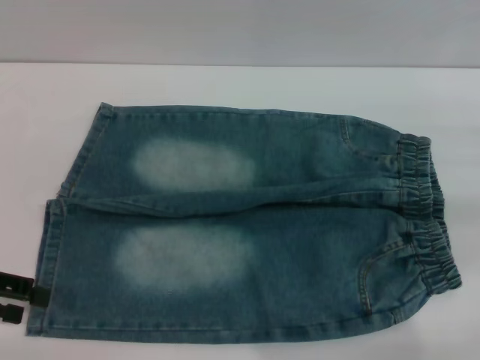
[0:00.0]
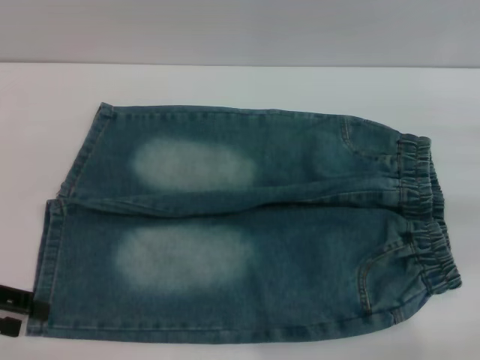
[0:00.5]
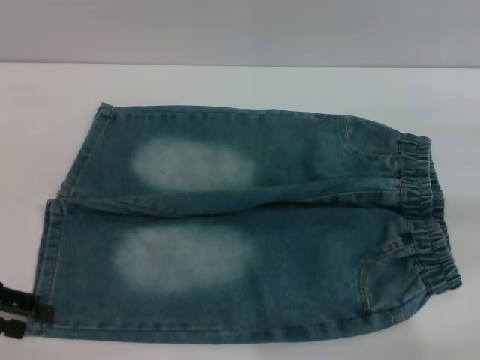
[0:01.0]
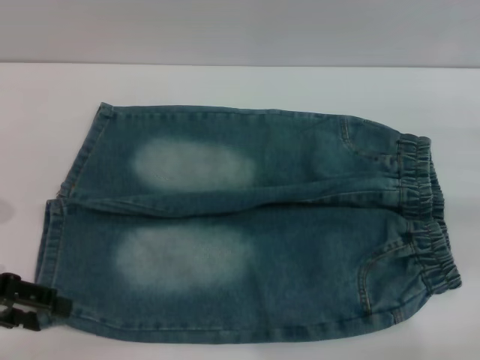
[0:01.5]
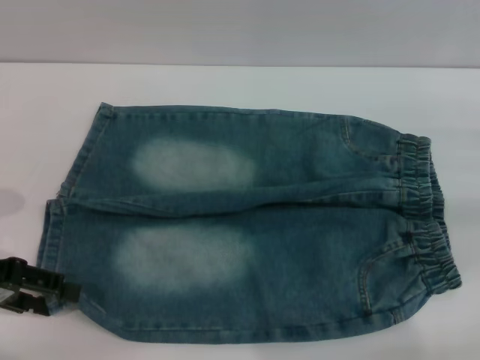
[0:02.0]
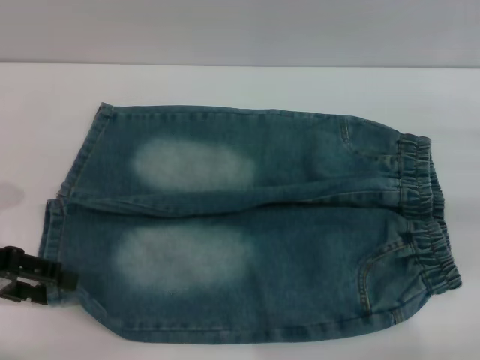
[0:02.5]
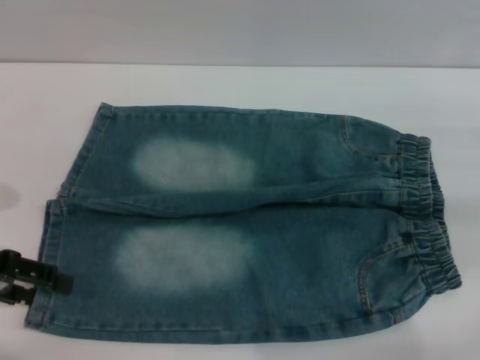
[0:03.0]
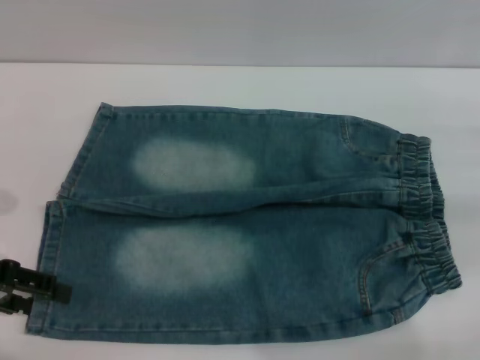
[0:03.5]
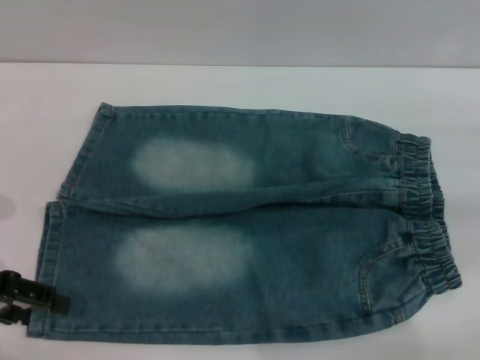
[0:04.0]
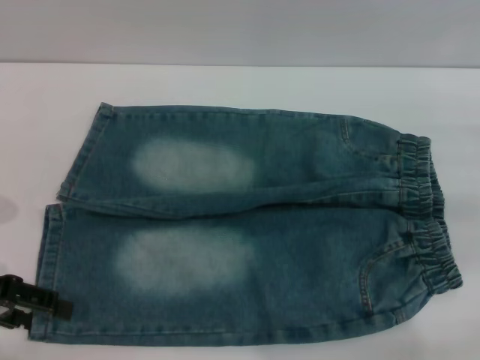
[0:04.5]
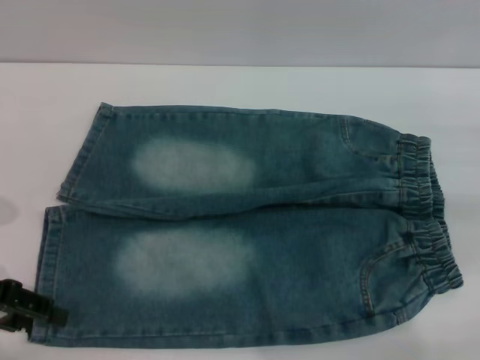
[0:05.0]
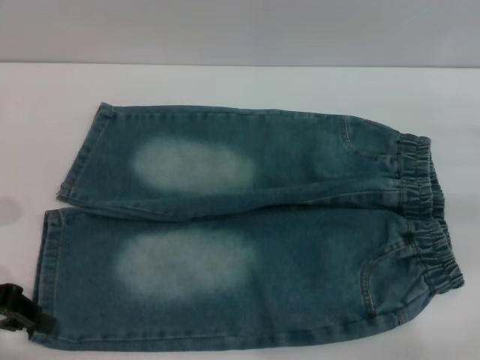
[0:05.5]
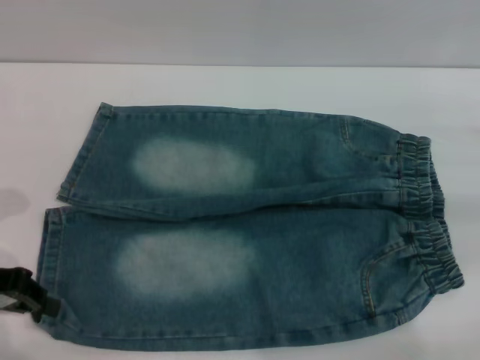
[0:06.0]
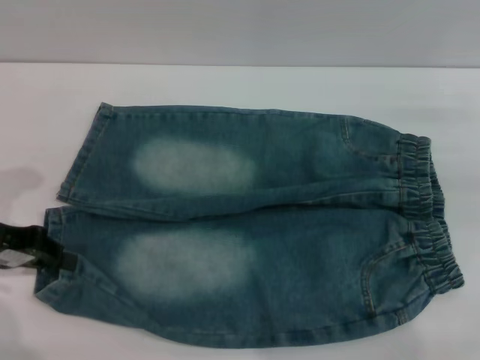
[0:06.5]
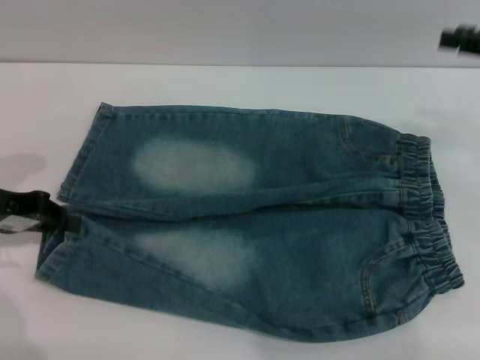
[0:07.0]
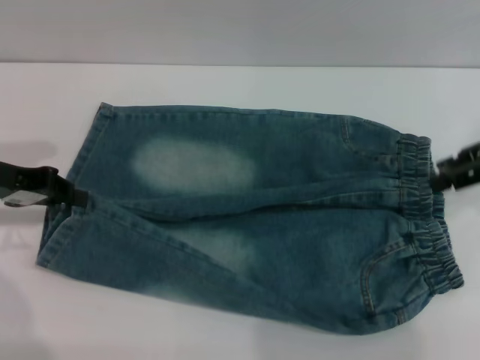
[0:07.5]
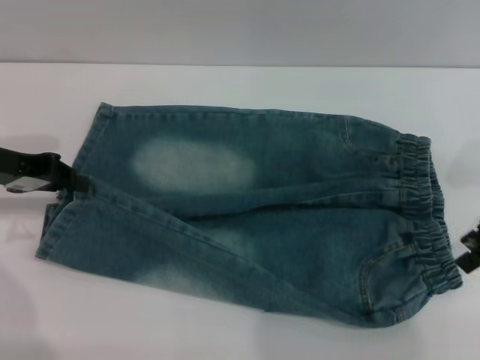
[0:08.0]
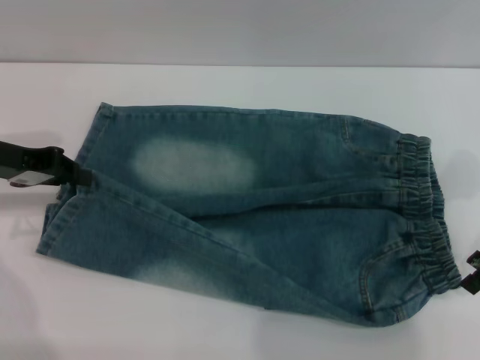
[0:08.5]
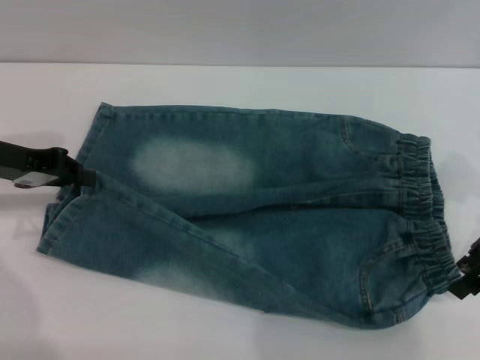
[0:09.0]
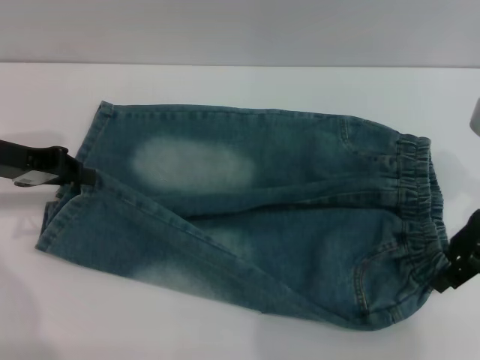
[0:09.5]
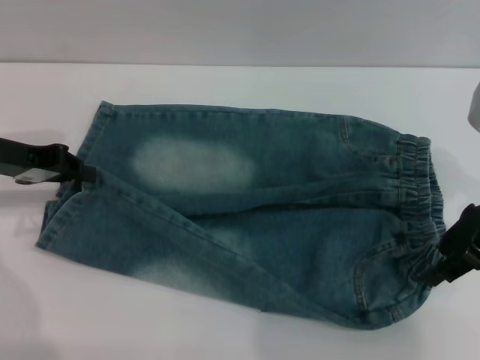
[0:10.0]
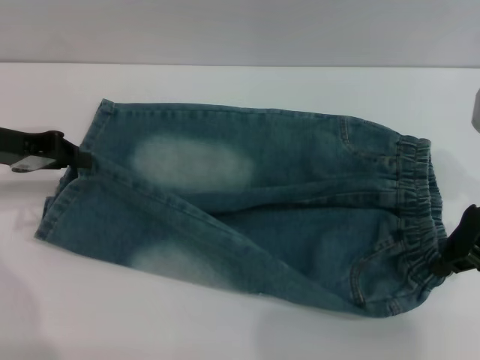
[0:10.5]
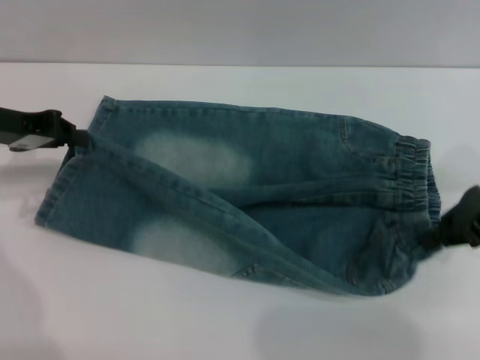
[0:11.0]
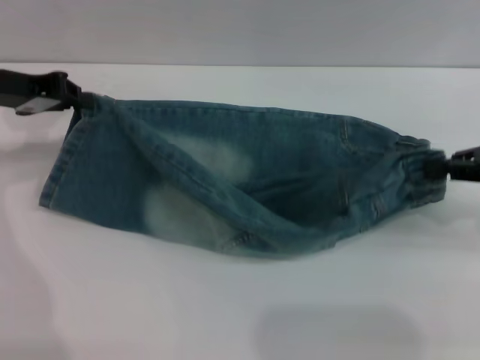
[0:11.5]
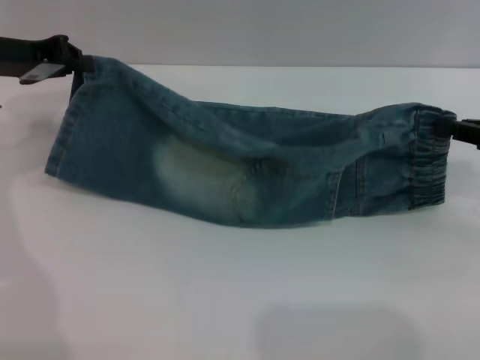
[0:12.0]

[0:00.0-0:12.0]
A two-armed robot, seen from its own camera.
0:00.0 to 0:02.0: The grippers make only small movements.
0:02.0 to 0:04.0: Neither gripper changes place.
0:04.0 to 0:06.0: The left gripper closes.
0:06.0 to 0:08.0: The right gripper is displaced upward and to the left by approximately 10 cm; the left gripper shifts some 5 cm forward.
0:08.0 to 0:10.0: The grippers stay close to where they were, moving slightly.
0:10.0 to 0:12.0: The right gripper goes some 10 cm to the right, and closes. Meanwhile the left gripper is displaced forward by approximately 5 cm.

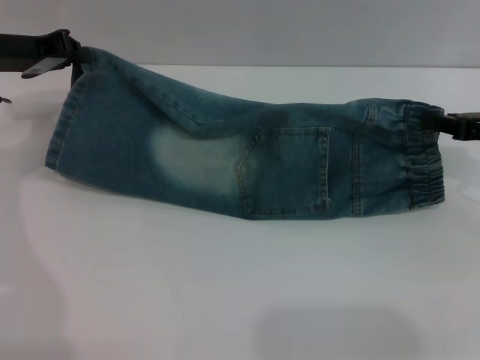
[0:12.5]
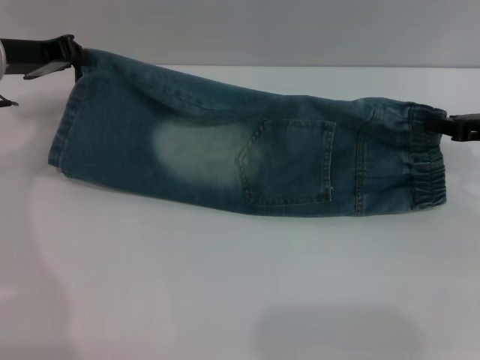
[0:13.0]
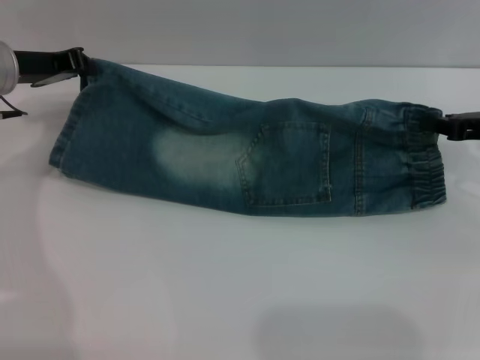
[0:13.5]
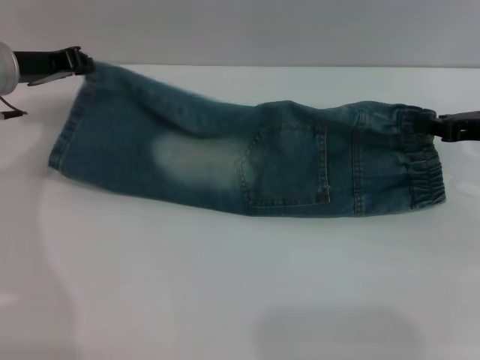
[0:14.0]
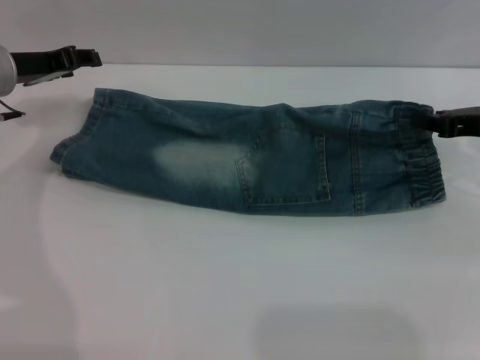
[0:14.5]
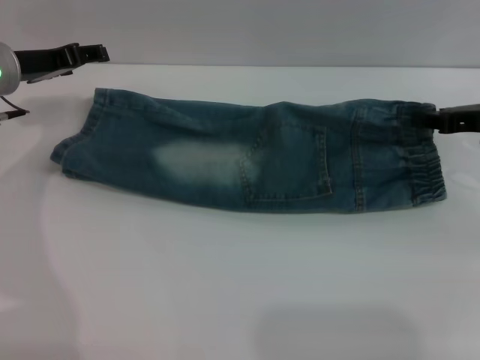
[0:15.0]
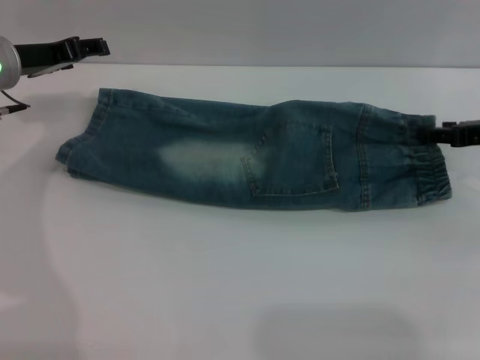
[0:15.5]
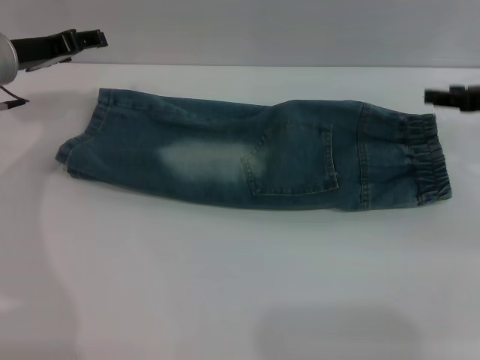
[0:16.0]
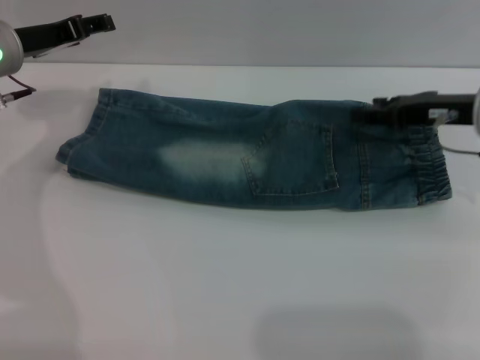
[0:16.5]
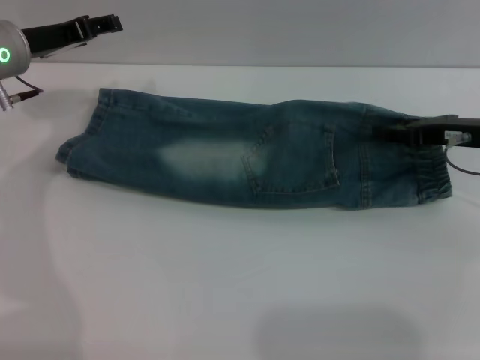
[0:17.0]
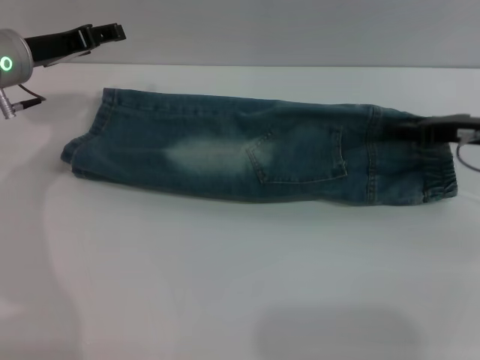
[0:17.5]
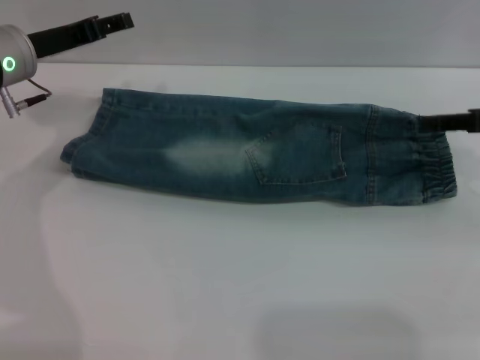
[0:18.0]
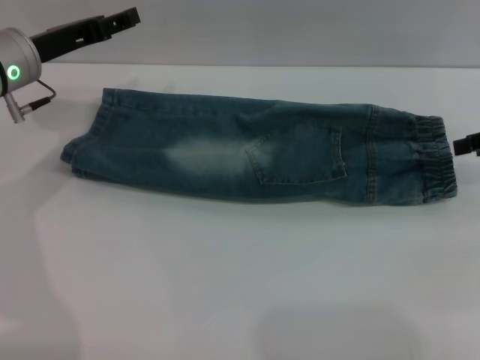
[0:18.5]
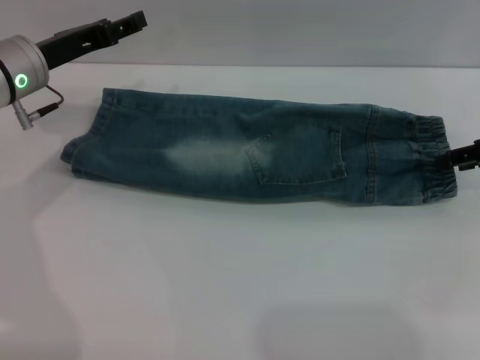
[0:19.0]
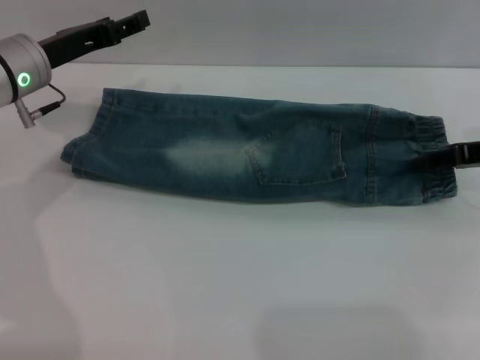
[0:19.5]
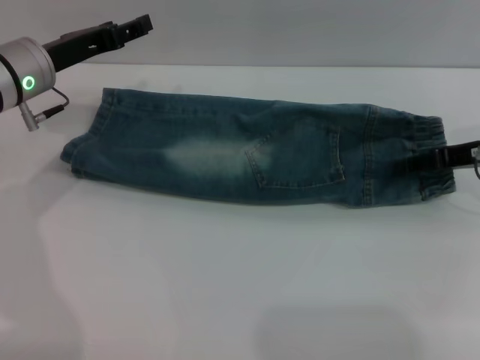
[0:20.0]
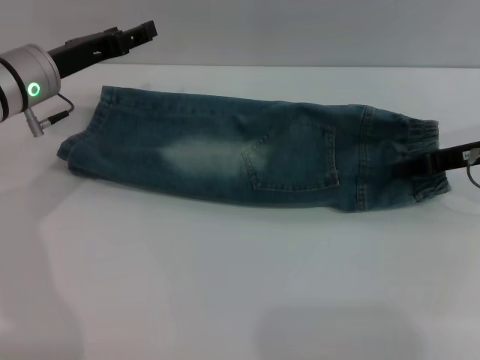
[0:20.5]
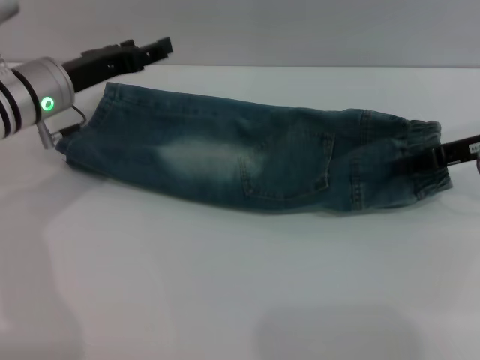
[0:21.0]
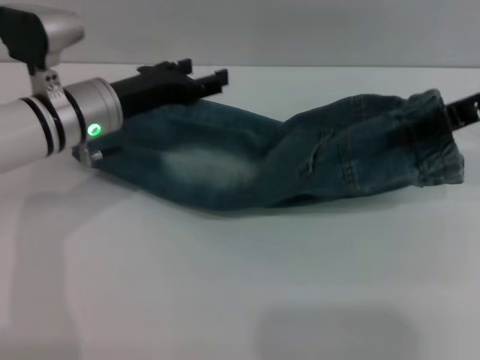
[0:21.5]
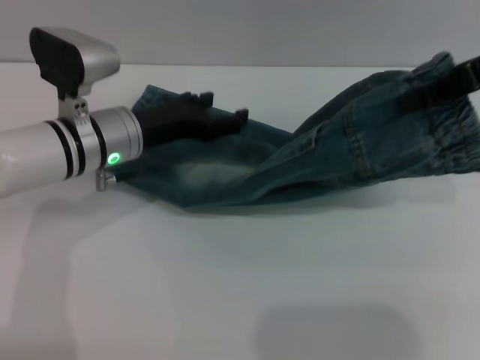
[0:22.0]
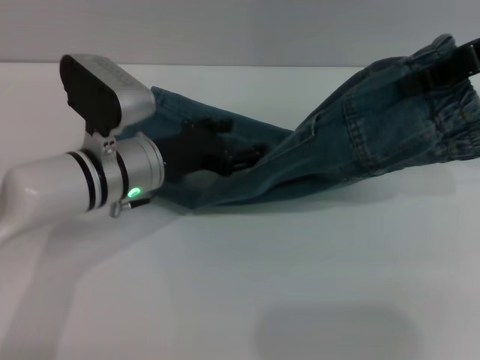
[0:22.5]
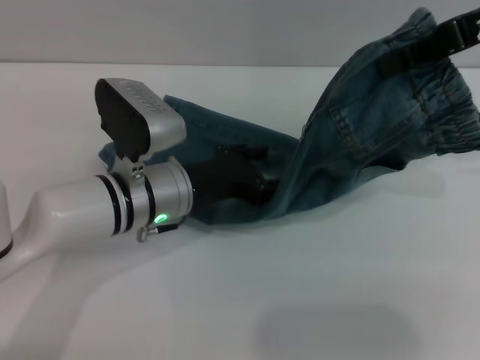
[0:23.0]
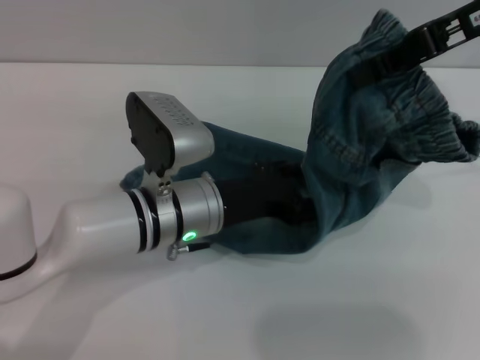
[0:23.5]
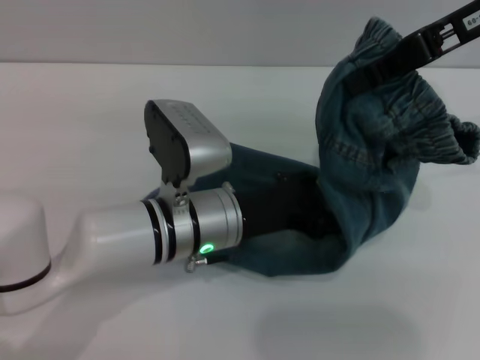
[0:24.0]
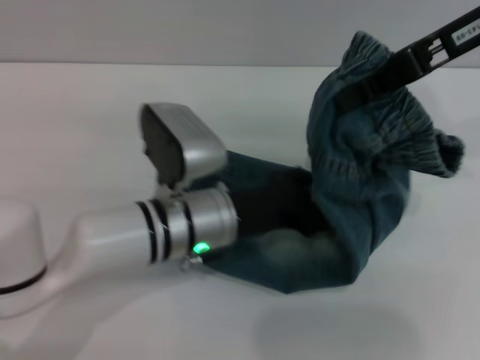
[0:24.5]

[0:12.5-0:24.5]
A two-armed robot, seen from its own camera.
Step, 0:12.5 to 0:16.0: Fold the bottom of the pants upward with both grippers.
0:12.5 to 0:14.5: The left gripper opens up.
0:14.5 to 0:16.5: The right gripper heads to the left, covering about 5 cm, and opens; the left gripper opens.
0:16.5 to 0:18.5: The right gripper travels to the right by approximately 10 cm.
0:18.5 to 0:20.5: The right gripper is displaced to the left by roughly 5 cm.
0:20.5 to 0:22.5: The left gripper is displaced to the right and backward by some 10 cm, while the right gripper goes roughly 15 cm upward, and closes.
0:22.5 to 0:24.5: The left gripper travels to the right and backward by approximately 10 cm. Meanwhile the right gripper shifts some 5 cm to the left.

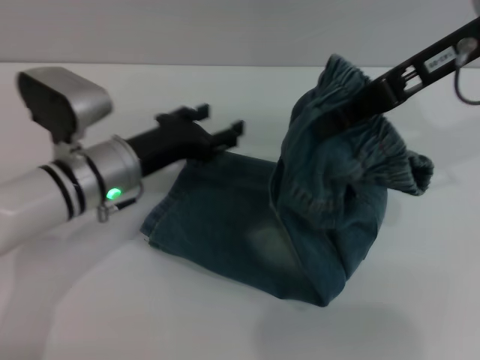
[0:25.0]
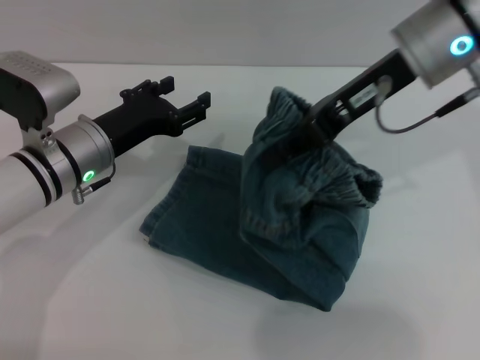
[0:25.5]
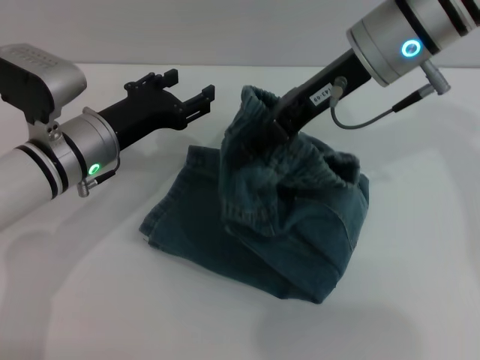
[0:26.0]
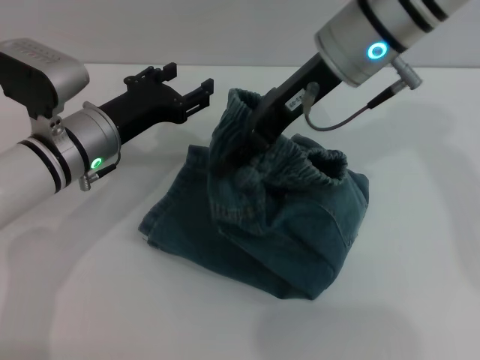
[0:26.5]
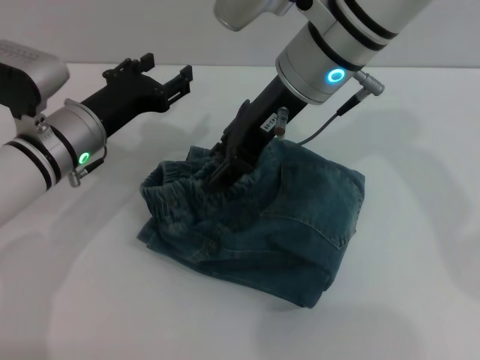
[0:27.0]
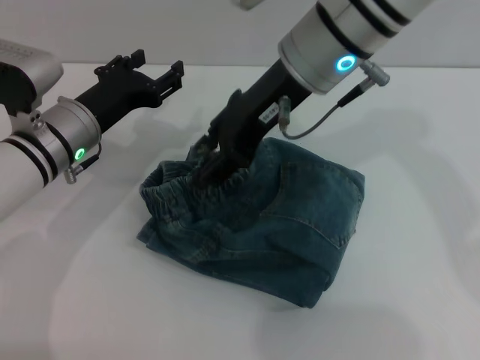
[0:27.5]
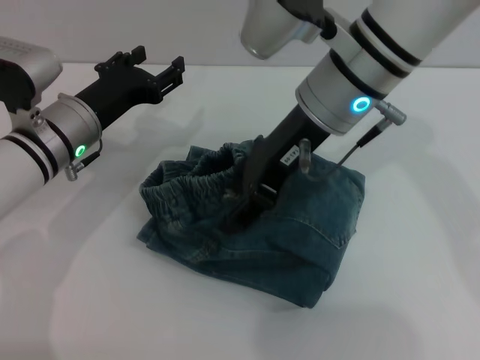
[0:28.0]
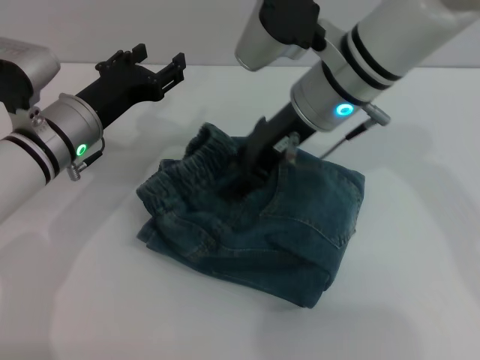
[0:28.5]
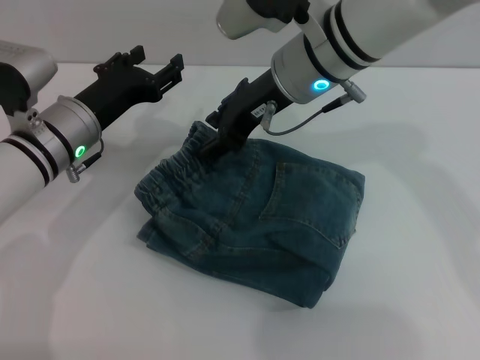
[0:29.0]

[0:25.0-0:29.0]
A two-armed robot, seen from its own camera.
0:25.0 to 0:27.0: The right gripper goes approximately 15 cm to the left, and opens its fingers.
0:27.0 to 0:29.0: The grippers stay close to where they were, moving slightly.
